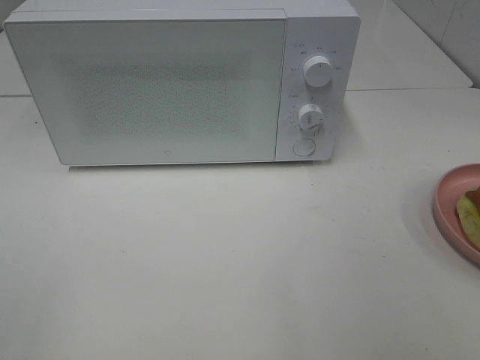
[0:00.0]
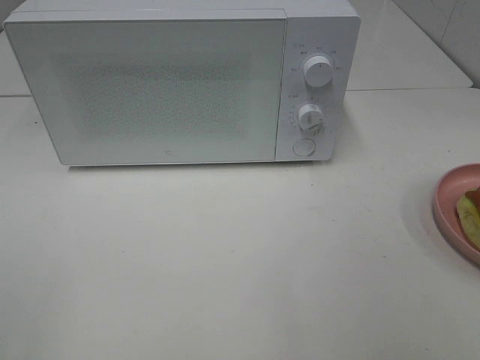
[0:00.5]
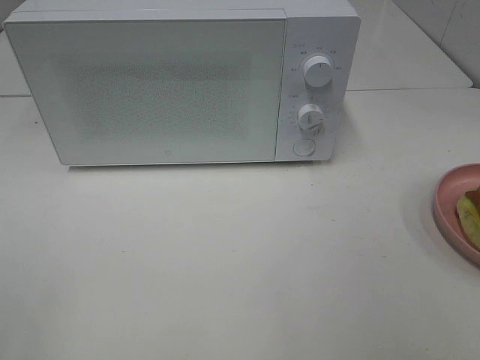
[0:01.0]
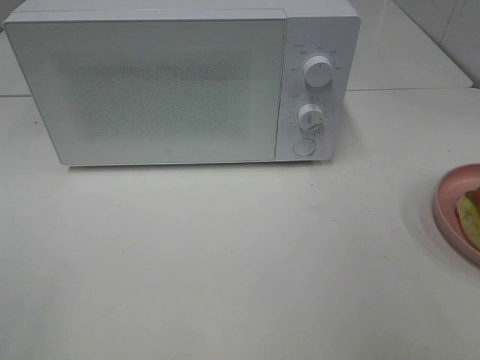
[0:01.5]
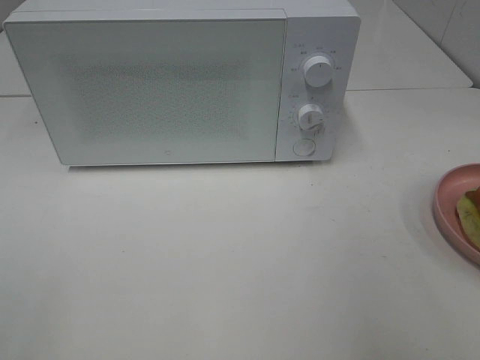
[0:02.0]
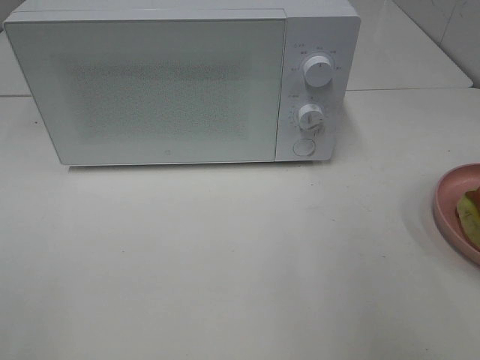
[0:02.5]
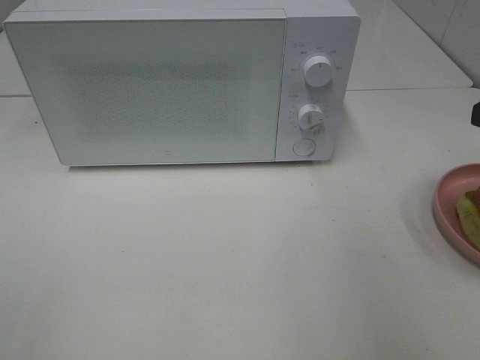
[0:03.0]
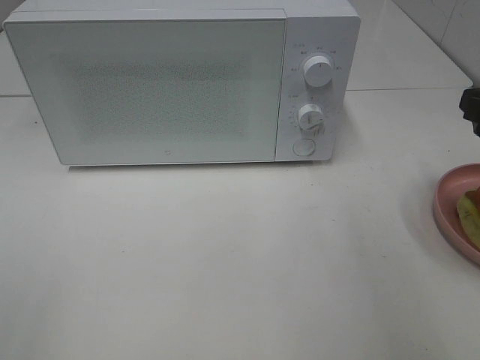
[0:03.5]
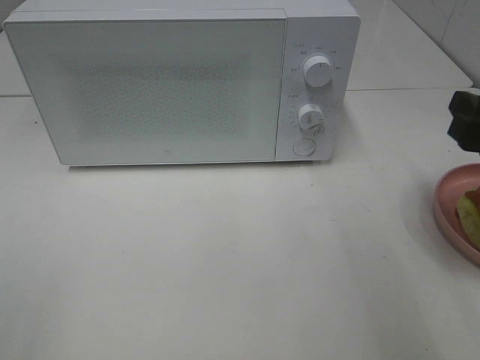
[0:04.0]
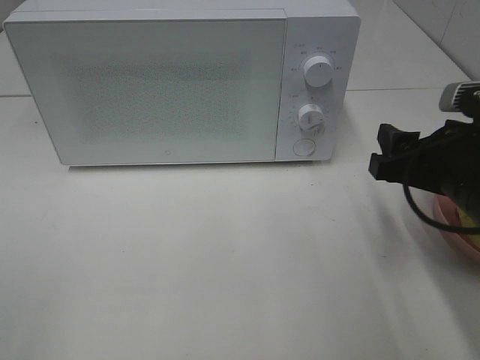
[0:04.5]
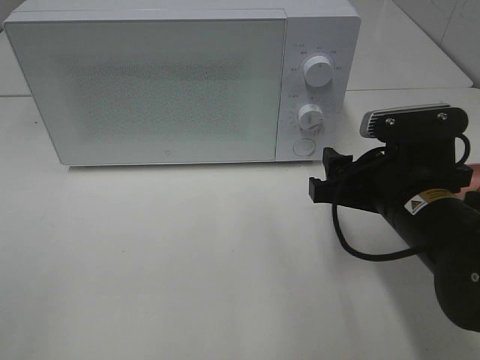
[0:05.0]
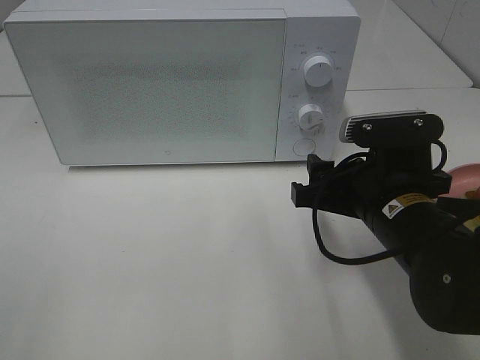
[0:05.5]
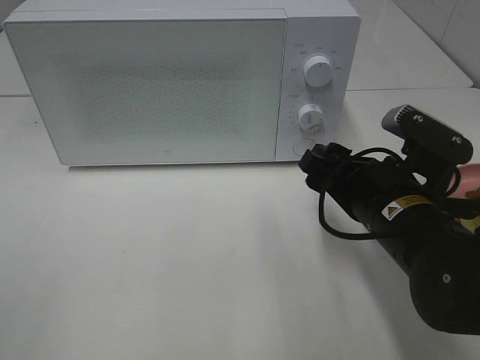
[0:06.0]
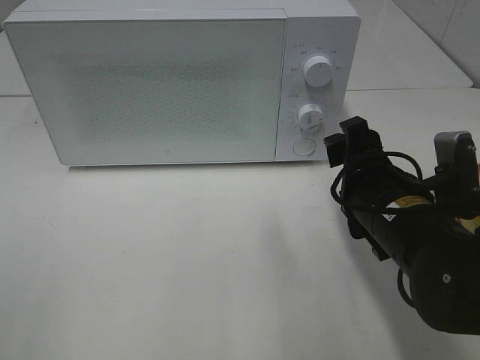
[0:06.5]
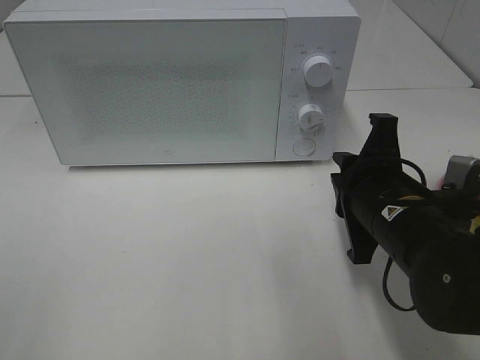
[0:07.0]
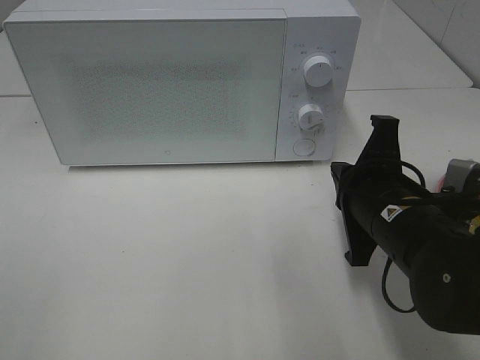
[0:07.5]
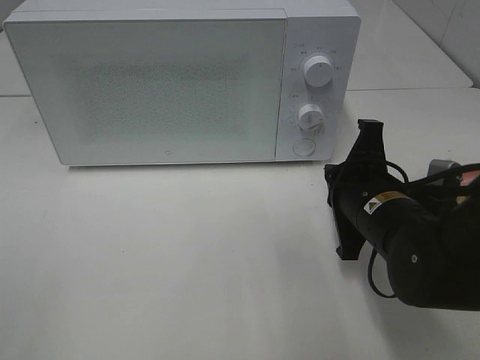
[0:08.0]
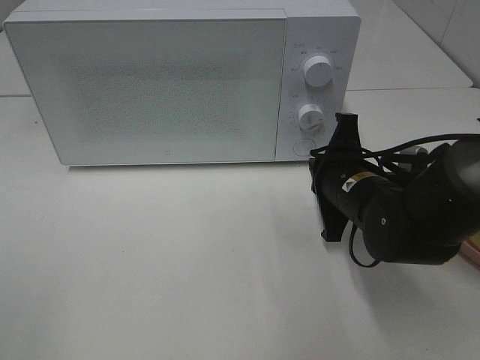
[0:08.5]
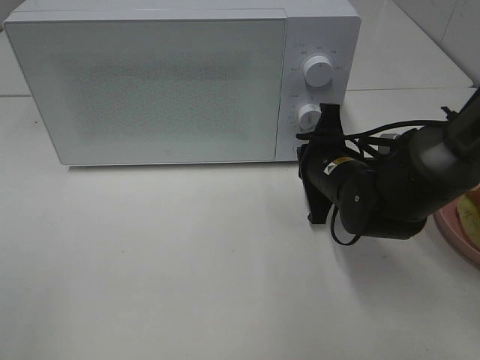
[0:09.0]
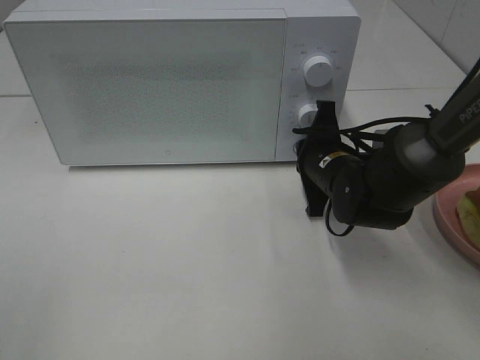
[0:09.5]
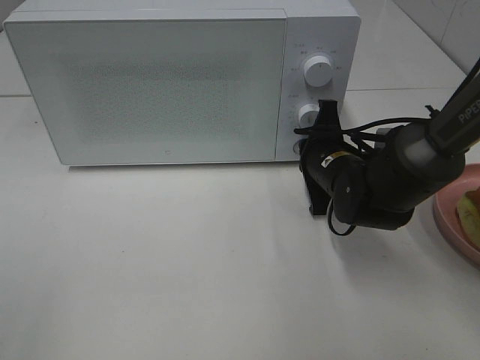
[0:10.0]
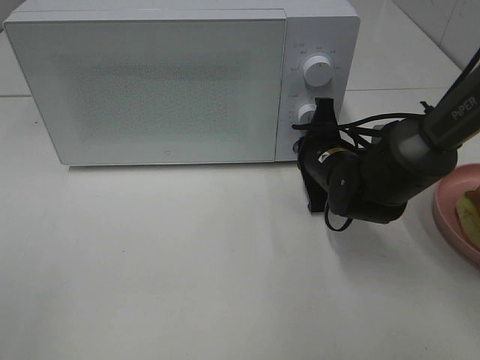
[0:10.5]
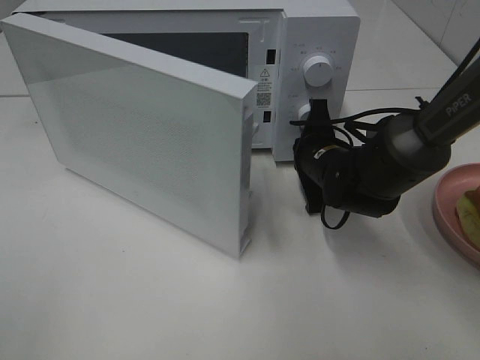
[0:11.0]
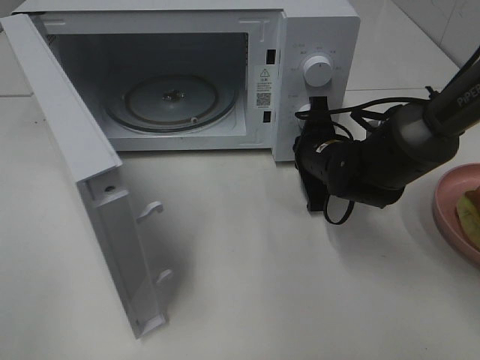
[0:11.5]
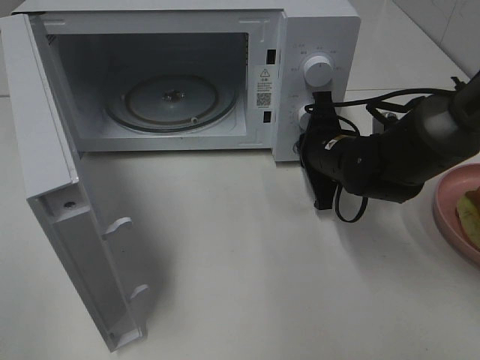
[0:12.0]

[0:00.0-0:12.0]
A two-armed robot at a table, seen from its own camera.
Task of the whole recording: Heat Sandwich.
0:02.0 to 0:04.0: The right gripper heads forward and downward, covering some 15 cm.
0:04.0 to 0:06.0: The right gripper shifts about 15 cm to the left and downward.
0:06.0 to 0:08.0: The right gripper closes up.
0:08.0 to 0:10.0: The right gripper is displaced forward by approximately 10 cm.

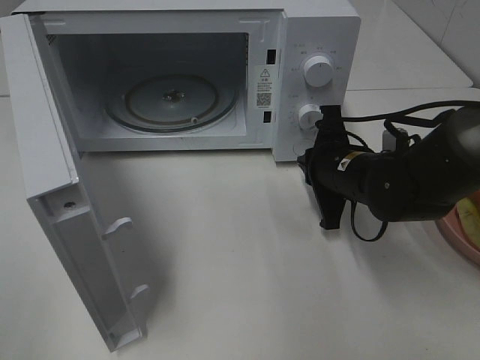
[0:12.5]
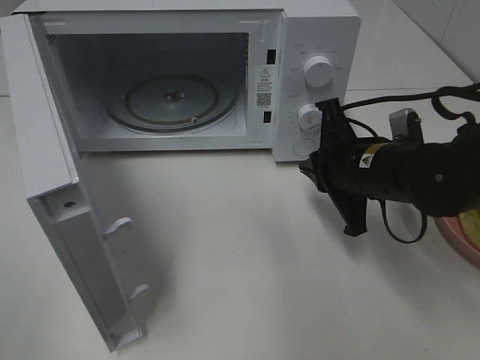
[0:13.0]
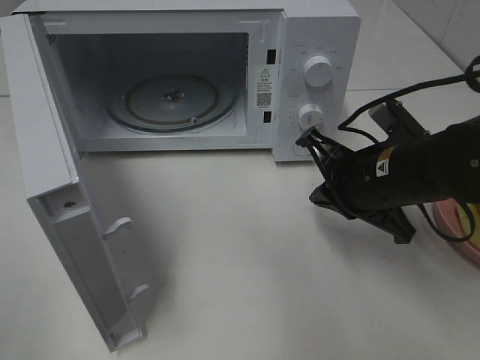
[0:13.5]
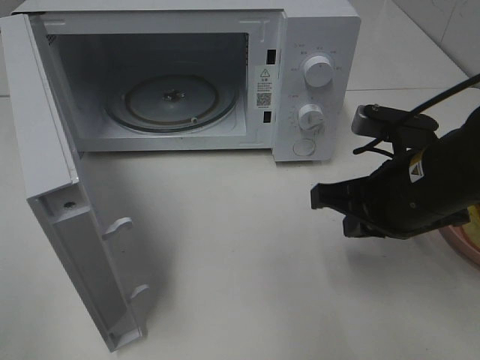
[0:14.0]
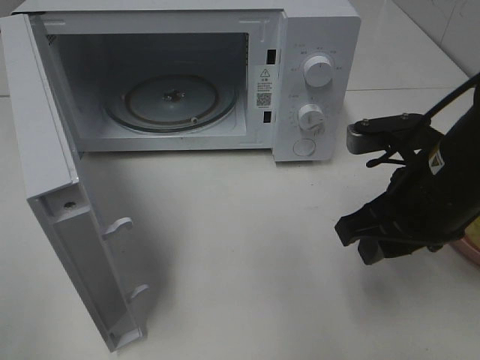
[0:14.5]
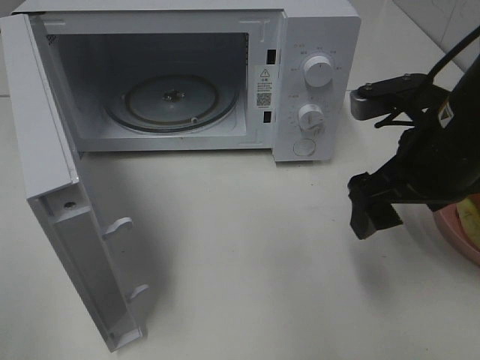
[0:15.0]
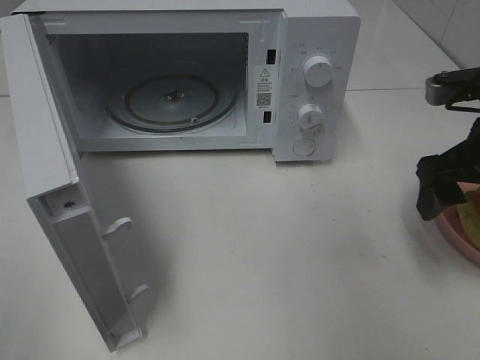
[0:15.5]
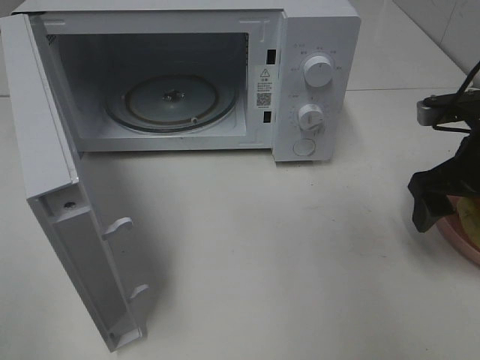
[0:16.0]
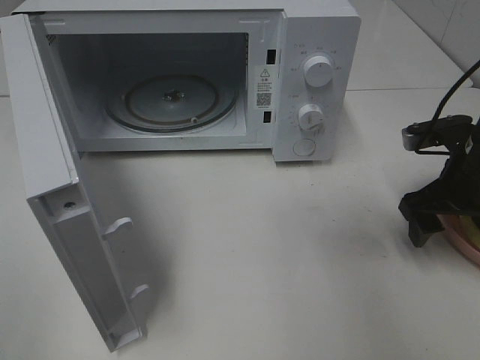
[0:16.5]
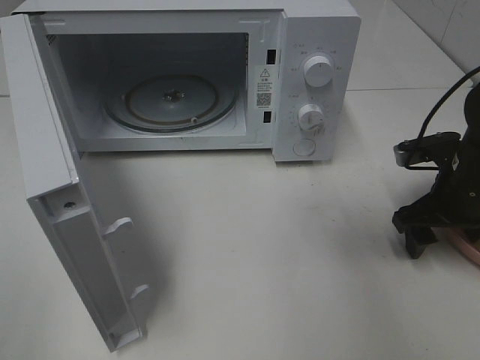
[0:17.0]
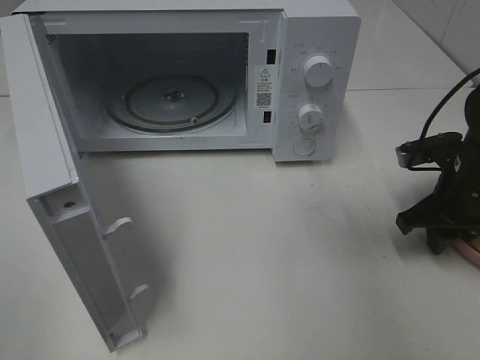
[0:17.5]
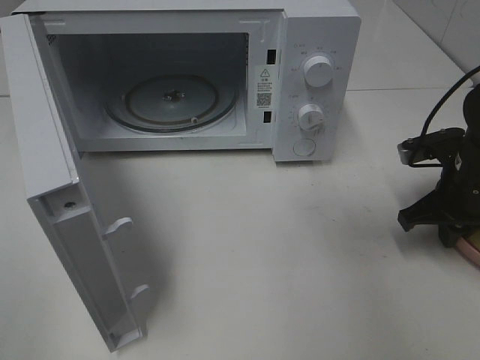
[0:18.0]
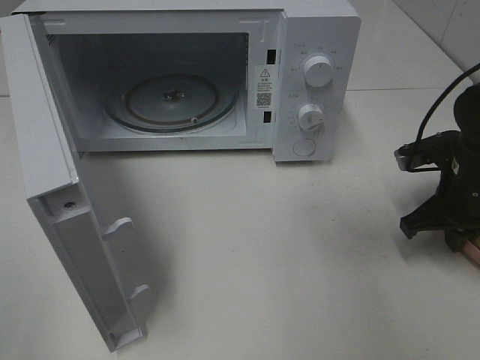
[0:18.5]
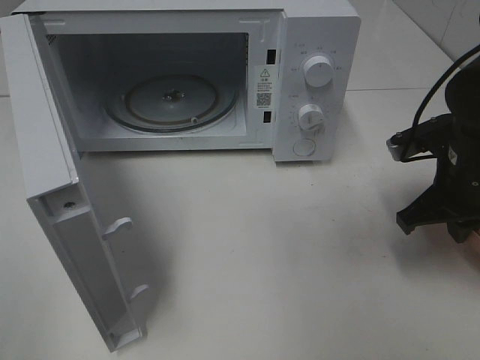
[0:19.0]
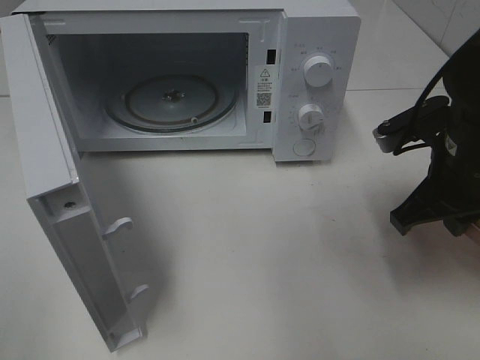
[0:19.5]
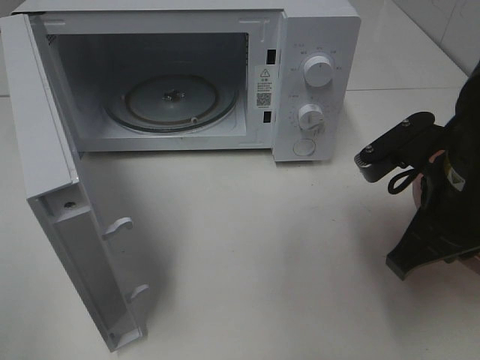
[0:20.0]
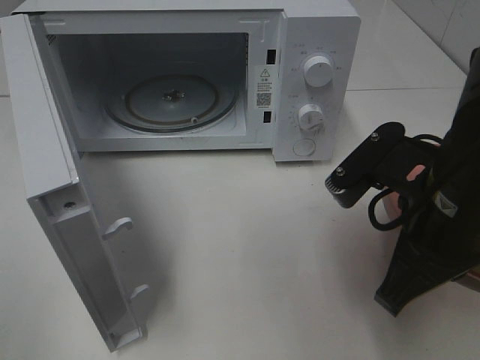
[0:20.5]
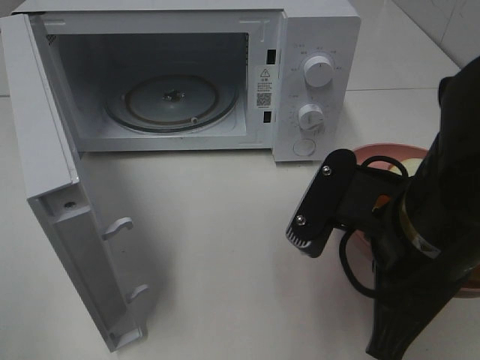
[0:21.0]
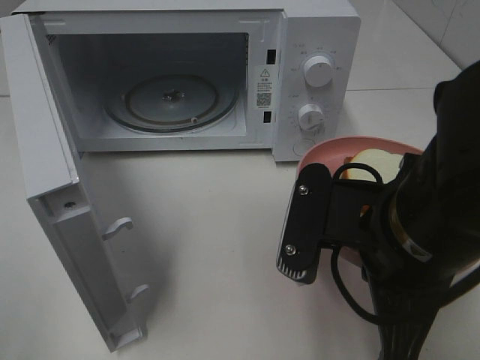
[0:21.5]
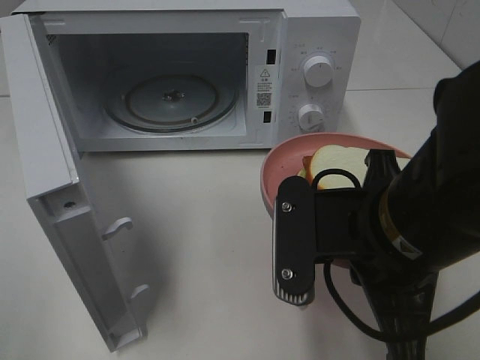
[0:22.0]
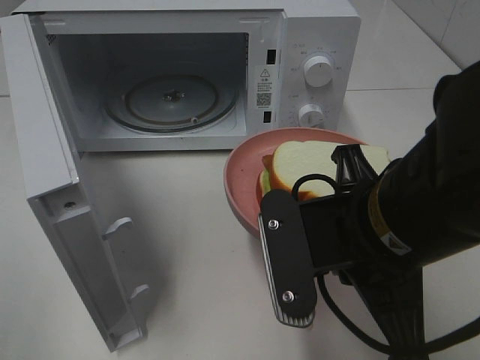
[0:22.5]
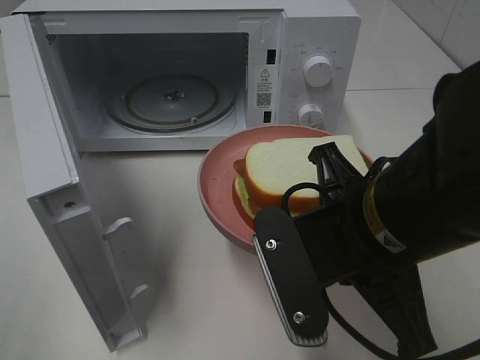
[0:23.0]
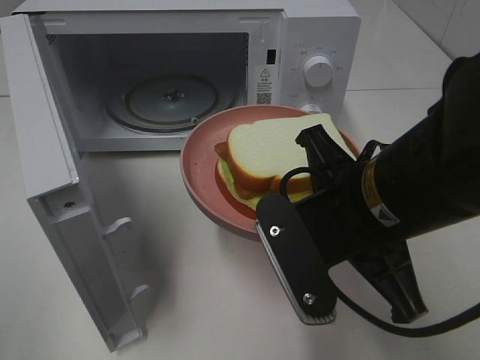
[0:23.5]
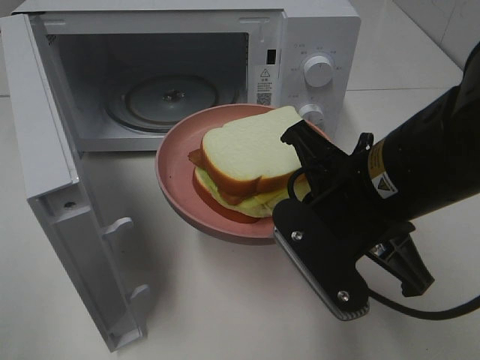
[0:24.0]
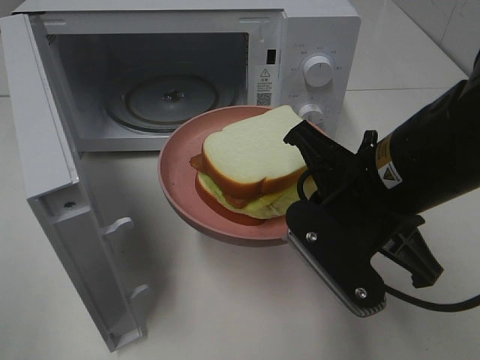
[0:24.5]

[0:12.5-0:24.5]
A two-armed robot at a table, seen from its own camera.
Task of the whole recording: Heat Sandwich.
Step, 0:13.0 to 0:18.0: Right hand: grab the plate with the sandwich.
0:12.5 to 0:14.5: The right gripper goes roughly 15 cm backward and upward, and opens.
0:14.5 to 0:16.5: The right gripper shifts about 10 cm to the right and forward, and opens up.
0:16.5 to 0:18.5: The right gripper closes.
0:18.5 to 0:20.5: The right gripper travels backward, to the left and upward by about 20 cm.
0:20.5 to 0:22.5: The right gripper goes approximately 5 cm to the left.

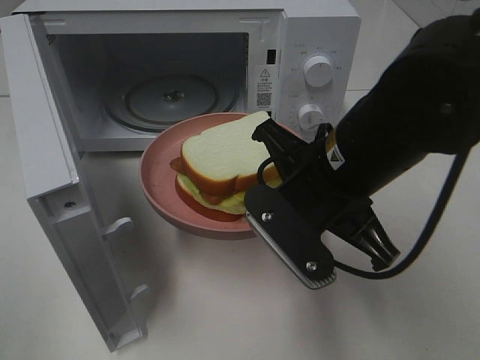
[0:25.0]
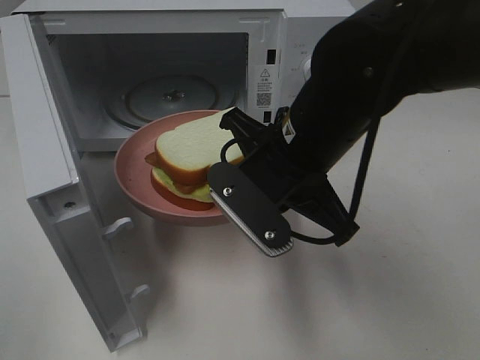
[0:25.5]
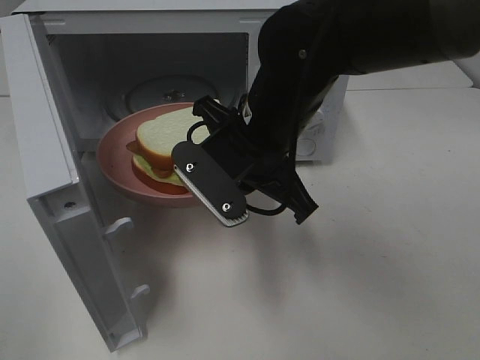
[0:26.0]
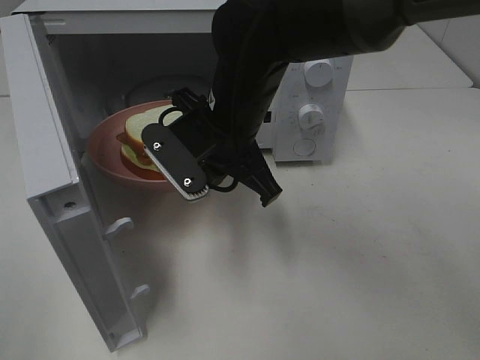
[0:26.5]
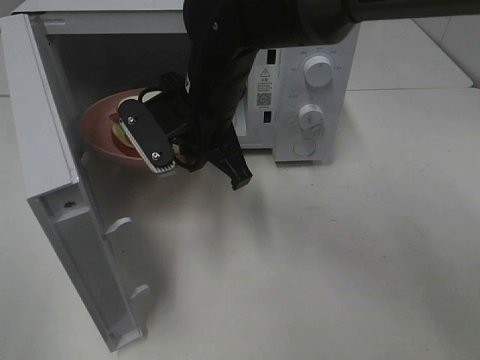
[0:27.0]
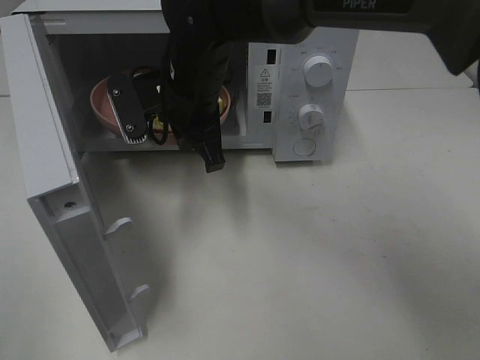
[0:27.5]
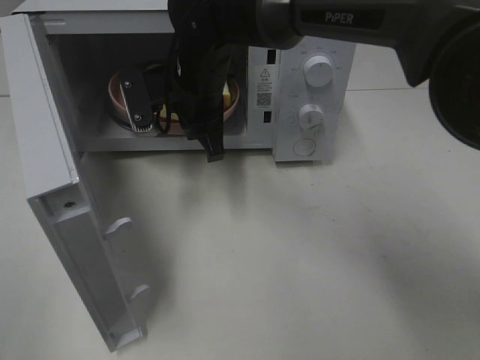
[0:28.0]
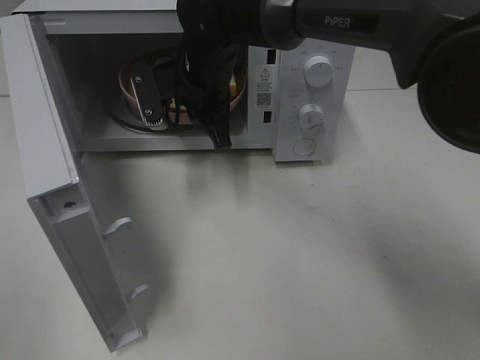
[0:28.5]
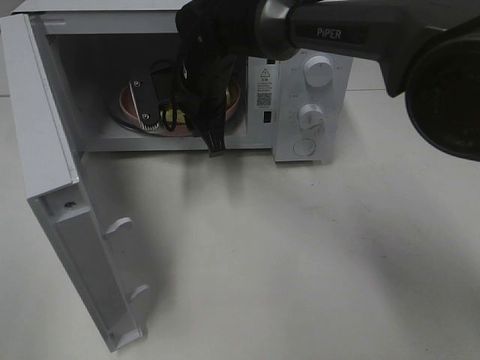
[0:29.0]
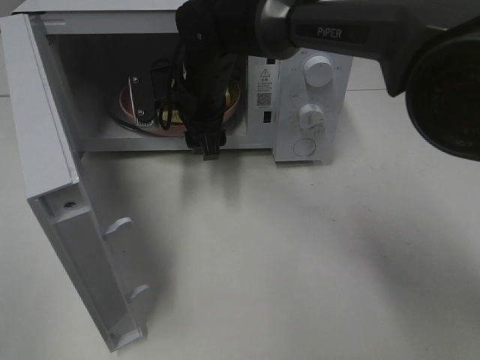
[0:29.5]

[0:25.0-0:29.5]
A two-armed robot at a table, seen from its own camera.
Task of the whole recording: Heat Sandwich.
0:25.0 to 0:27.0: The right gripper is displaced forward and to the left by approximately 15 cm.
0:27.0 to 0:29.5: The right gripper is displaced forward by some 10 cm, and opens.
